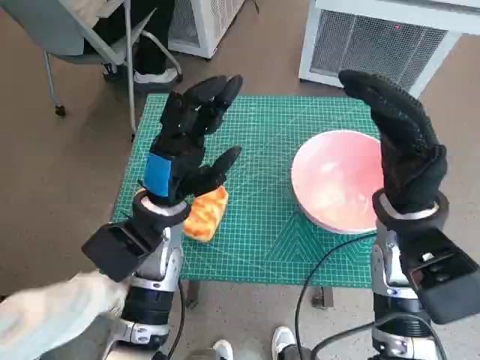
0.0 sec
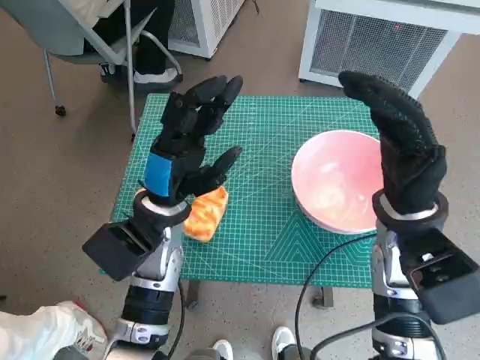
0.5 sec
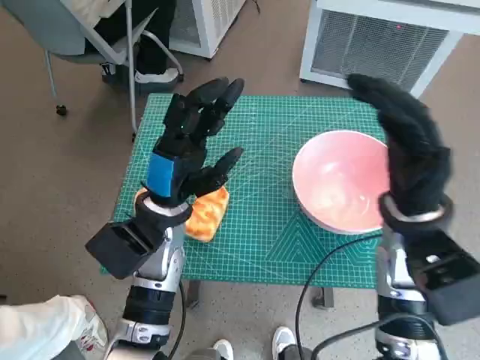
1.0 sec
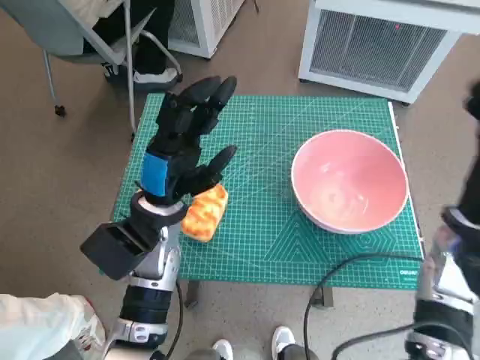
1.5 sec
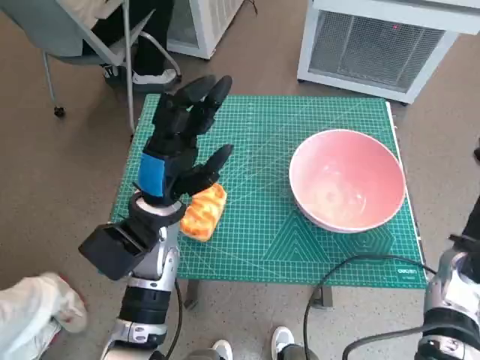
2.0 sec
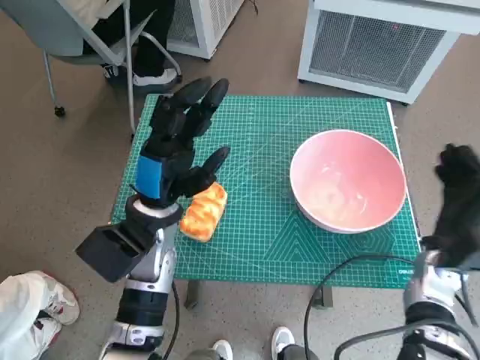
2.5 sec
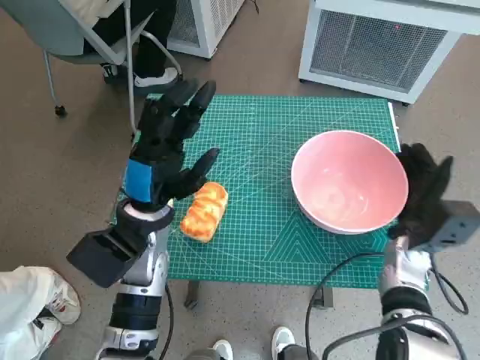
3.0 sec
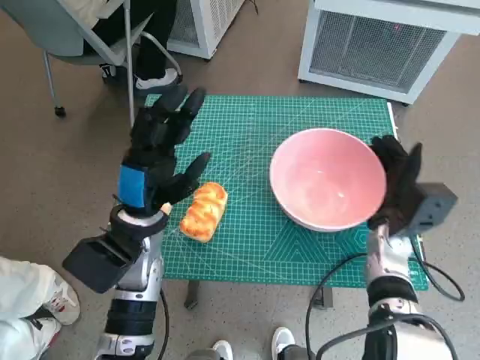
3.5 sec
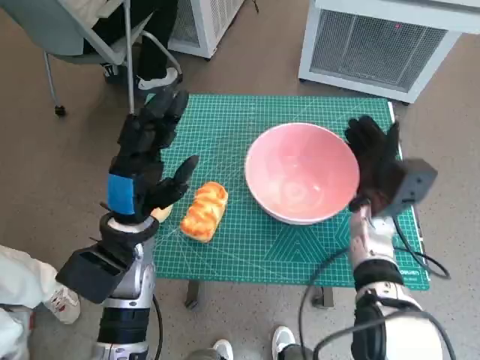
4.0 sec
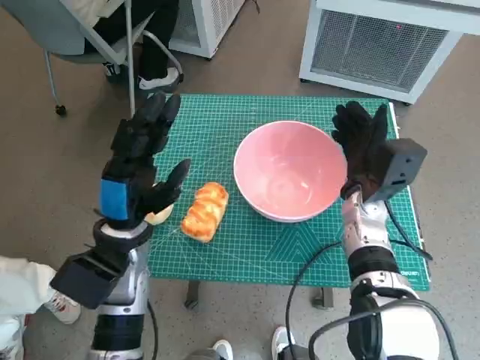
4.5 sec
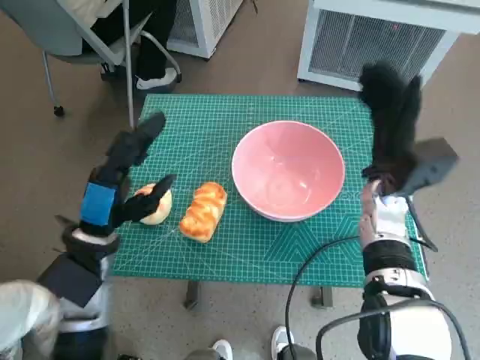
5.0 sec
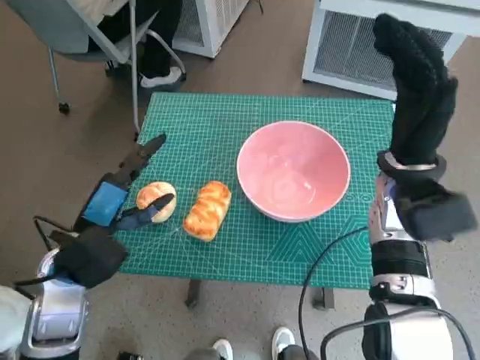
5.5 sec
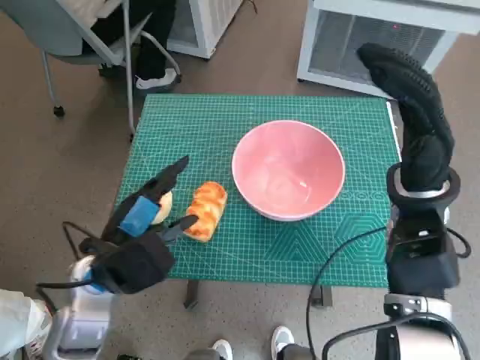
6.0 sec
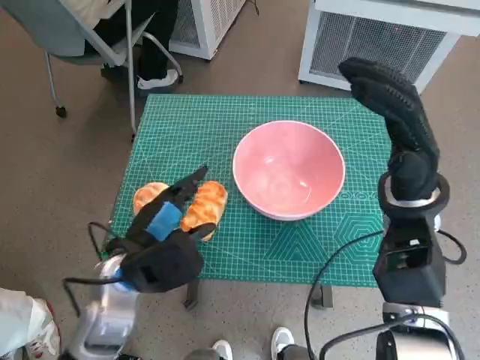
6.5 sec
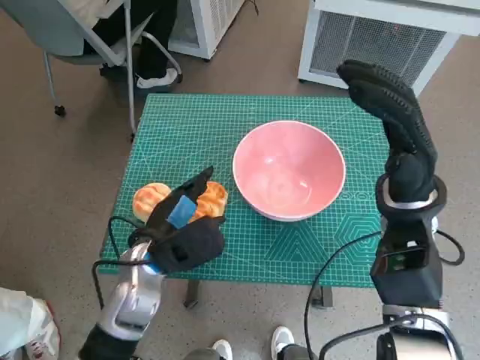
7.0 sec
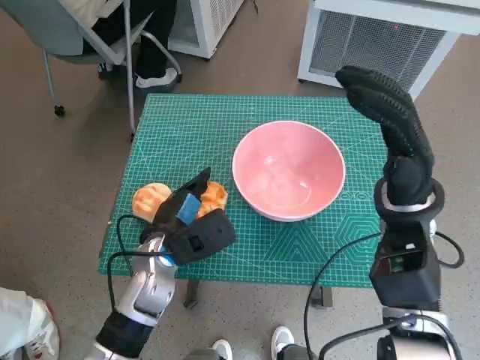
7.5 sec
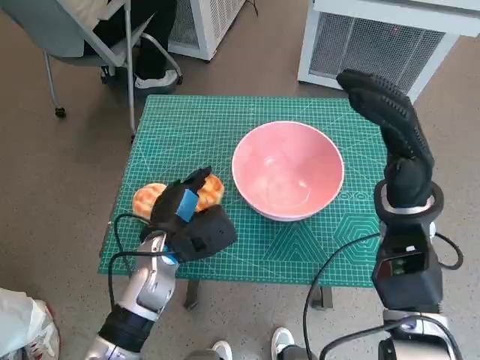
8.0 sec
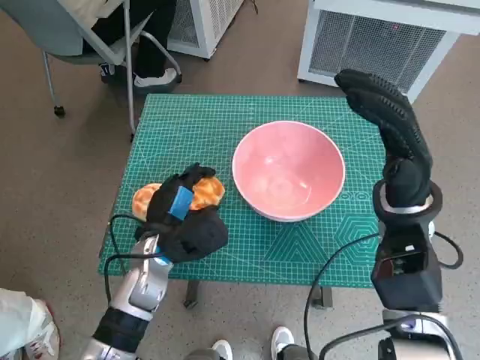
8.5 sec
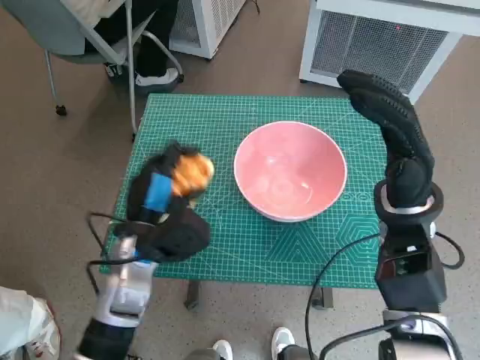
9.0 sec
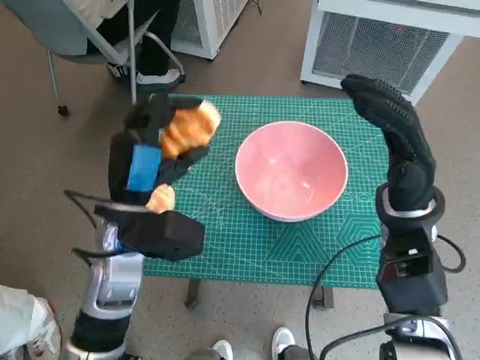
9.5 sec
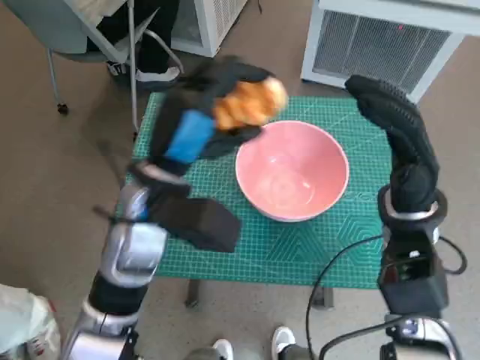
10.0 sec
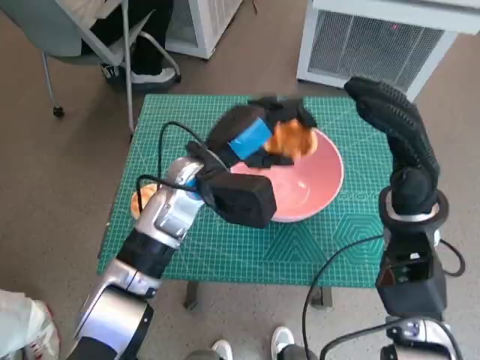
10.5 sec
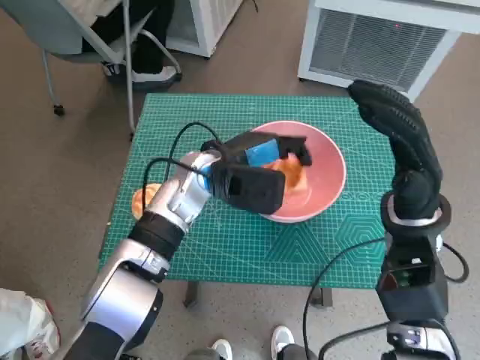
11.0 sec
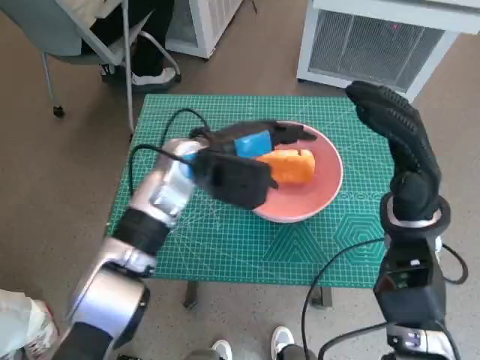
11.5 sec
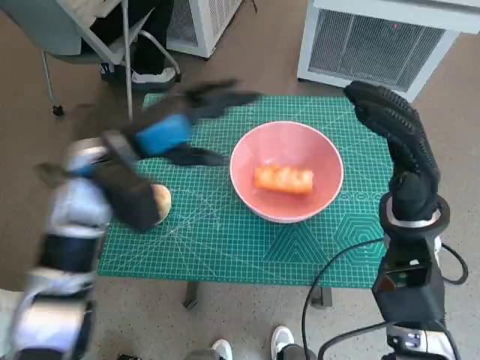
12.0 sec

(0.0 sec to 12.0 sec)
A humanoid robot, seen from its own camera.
Task of the whole recording: Push the bowl to the center of the table and put the bread into the bowl.
Step, 0.0 sec - 4.5 sec: Move the pink bowl to the center of table with right hand.
Step, 5.0 sec - 8.0 sec: Grasp the long bread with left hand.
Step, 8.5 sec - 11.5 sec: Place the long bread in pink bowl with left hand.
2.0 sec - 4.0 sec: The right hand travels to the left and forward by some 15 cm.
4.0 sec - 6.0 sec: The left hand changes place by approximately 5 cm; the right hand is displaced upward by approximately 10 cm.
6.0 sec - 8.0 sec: The left hand travels downward and forward by some 10 cm.
8.0 sec - 10.0 sec: The left hand is displaced upward by about 15 cm.
10.0 sec - 12.0 sec: The left hand goes some 5 cm to the left.

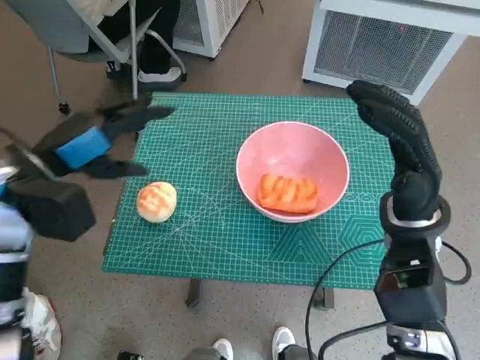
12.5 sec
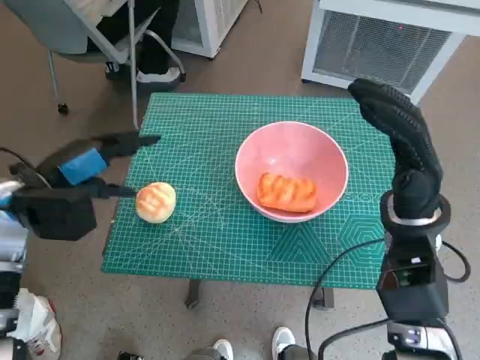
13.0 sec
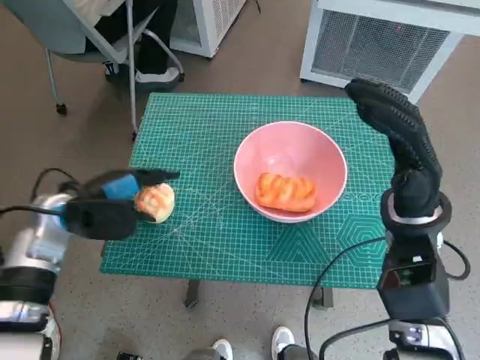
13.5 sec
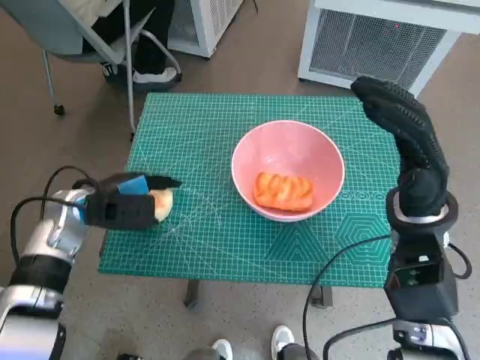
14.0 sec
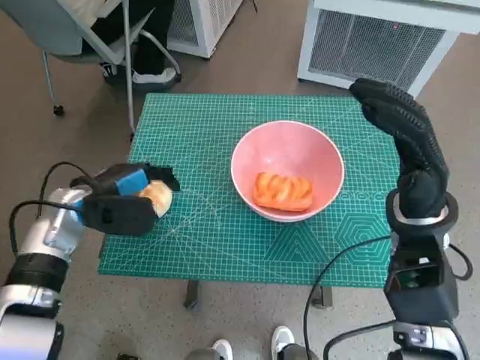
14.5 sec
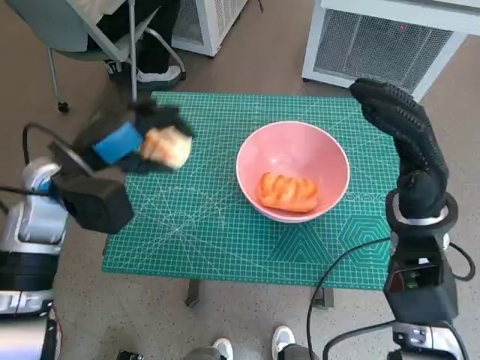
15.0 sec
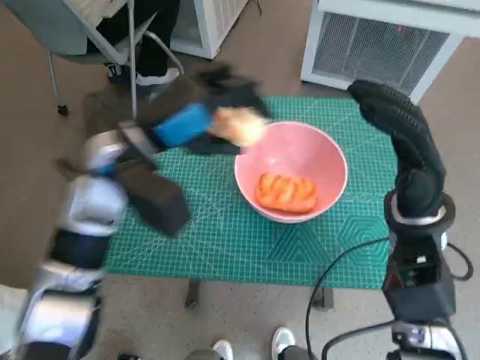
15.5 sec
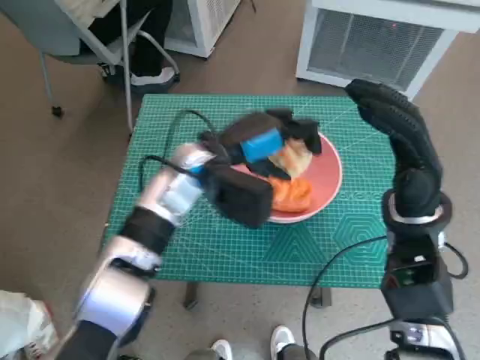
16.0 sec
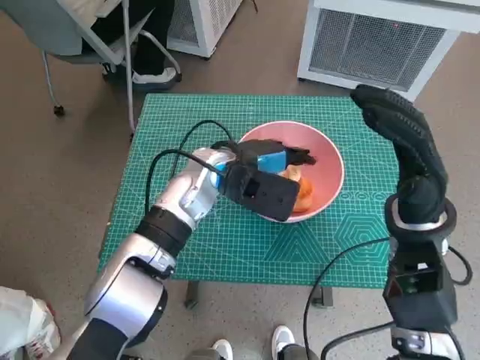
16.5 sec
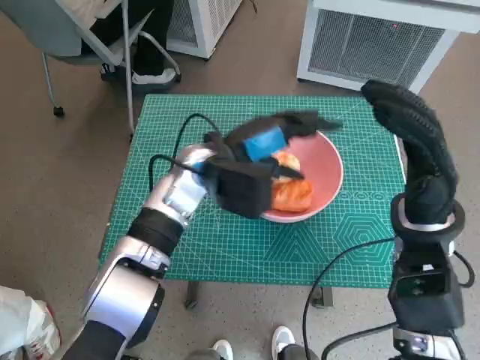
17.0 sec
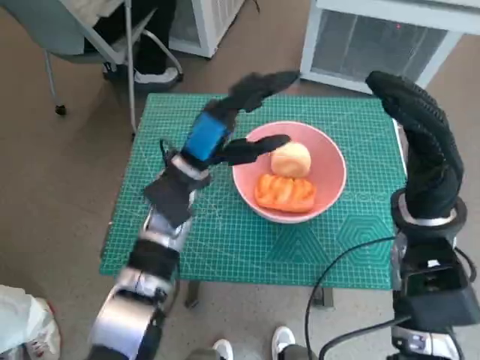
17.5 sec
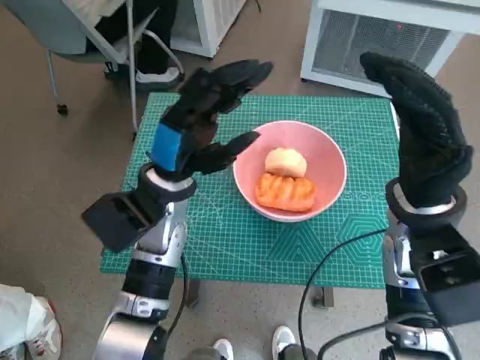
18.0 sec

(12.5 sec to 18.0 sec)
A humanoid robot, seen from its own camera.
Task of the whole recording: Push the bowl to the center of the table and put the bread into the bowl.
Step, 12.5 sec - 14.0 sec: Grasp the round bread with left hand.
Step, 14.5 sec - 17.0 sec: Place the round bread in pink bowl with left hand.
12.5 sec - 14.5 sec: The left hand heads downward, covering roughly 10 cm.
14.5 sec - 16.0 sec: The left hand shifts about 20 cm to the right.
16.0 sec - 18.0 sec: The left hand changes place by some 5 cm.

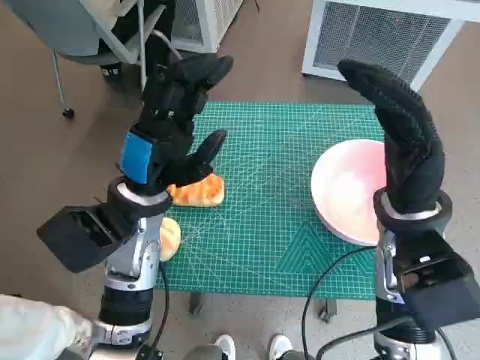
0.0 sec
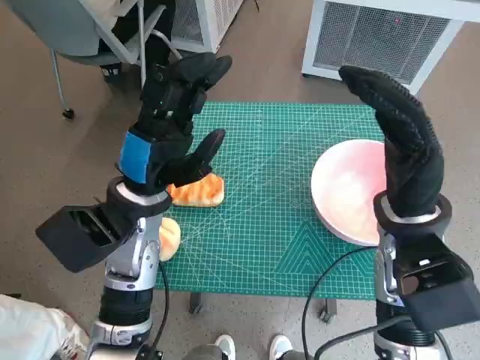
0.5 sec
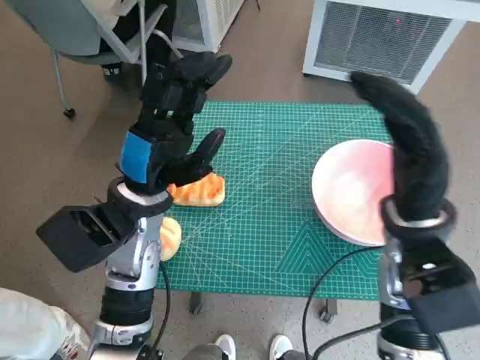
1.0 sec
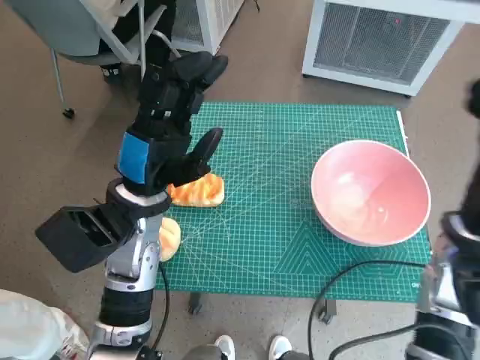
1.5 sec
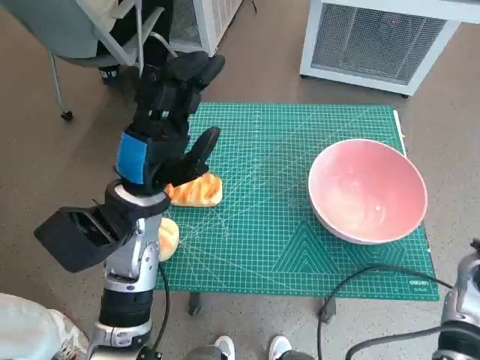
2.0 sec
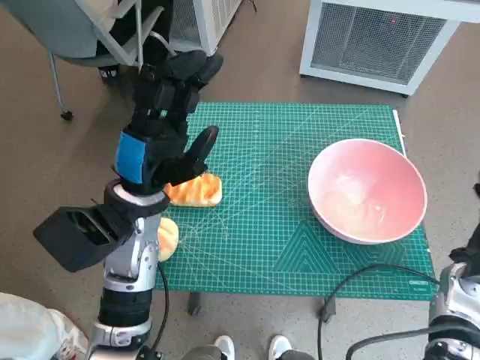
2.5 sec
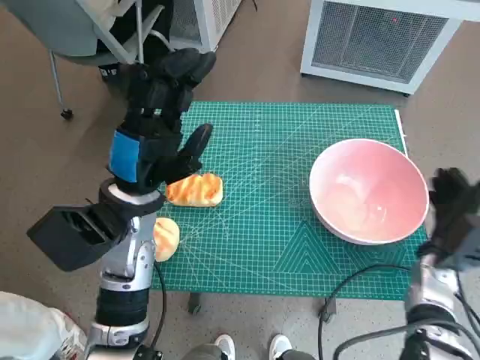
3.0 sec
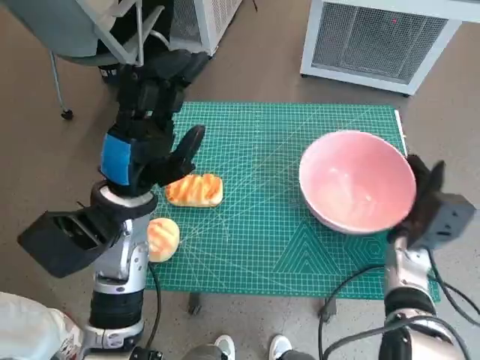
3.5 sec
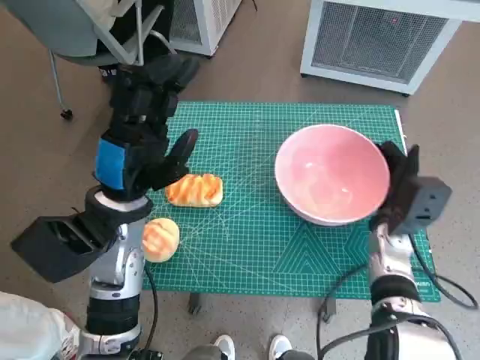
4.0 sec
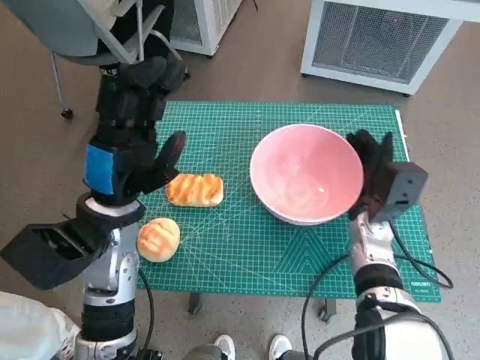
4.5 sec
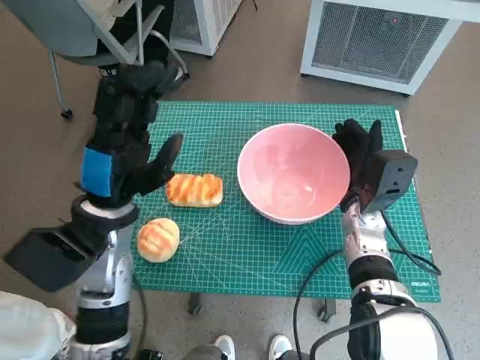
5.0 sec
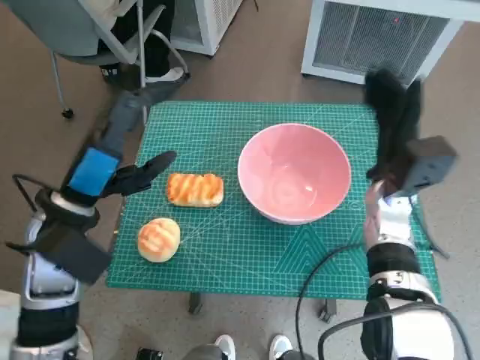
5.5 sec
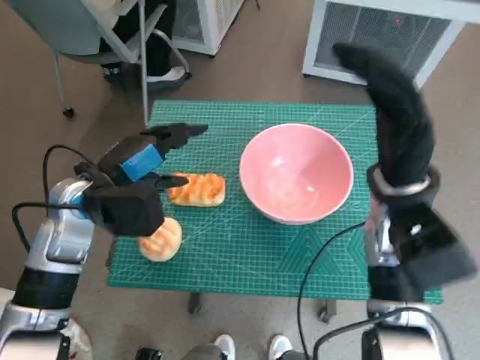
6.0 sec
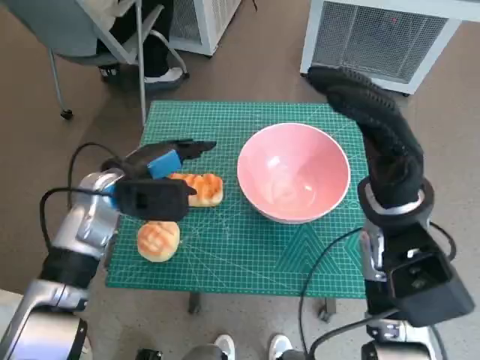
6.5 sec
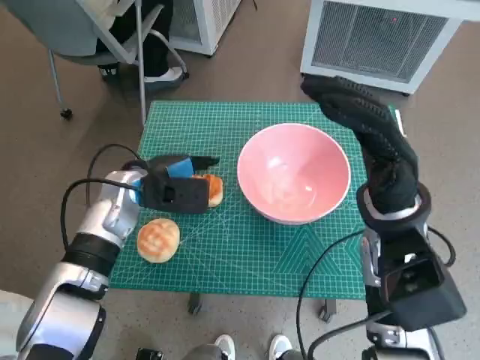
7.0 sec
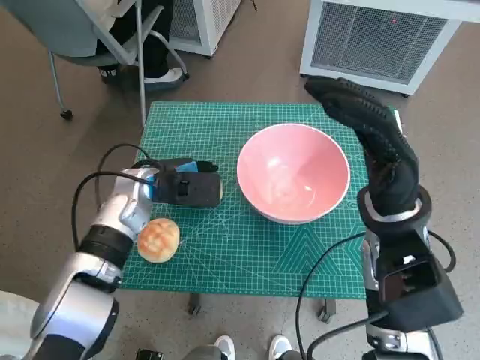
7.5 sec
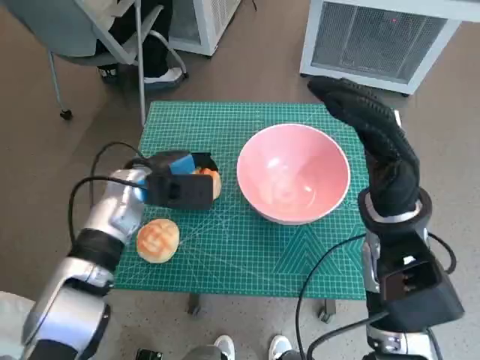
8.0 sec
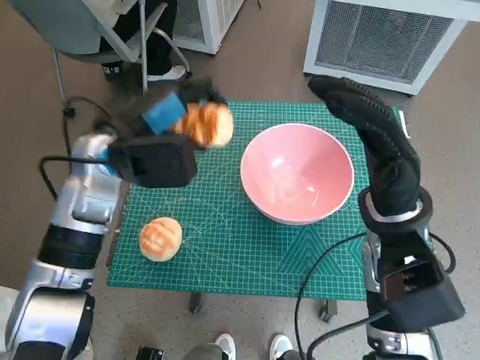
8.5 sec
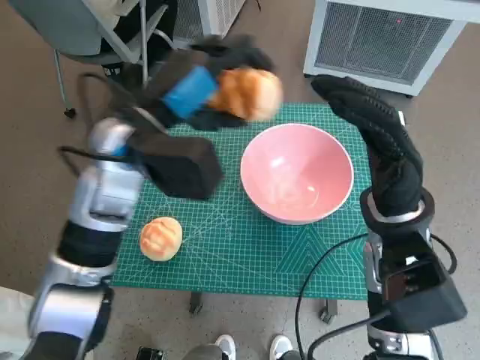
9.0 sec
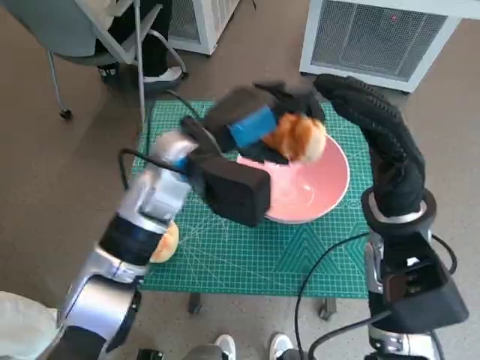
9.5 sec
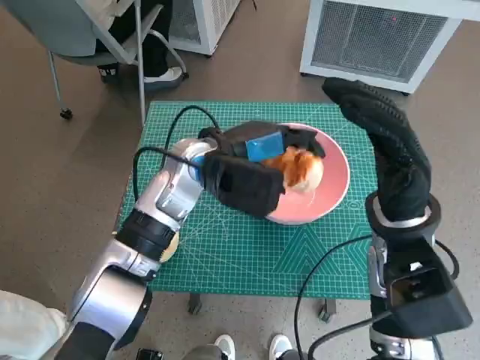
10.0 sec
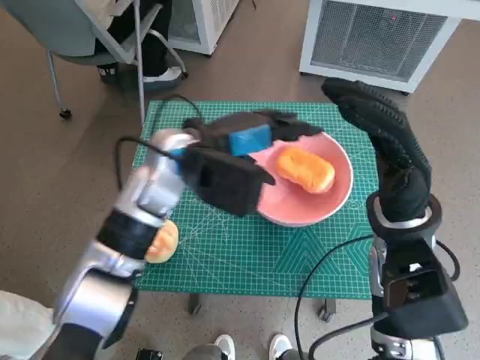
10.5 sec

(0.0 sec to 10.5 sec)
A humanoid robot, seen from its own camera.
Task of the whole recording: Push the bowl to the center of the table and put the bread into the bowl.
Step, 0.0 sec - 5.5 sec: Move the pink bowl to the center of table with right hand.
Step, 6.0 sec - 7.5 sec: Grasp the long bread with left hand.
Step, 8.0 sec - 10.0 sec: Place the long bread in pink bowl with left hand.
2.0 sec - 4.0 sec: The right hand travels to the left, forward and downward by about 10 cm.
4.0 sec - 6.5 sec: The right hand goes approximately 15 cm upward. Meanwhile the left hand goes approximately 5 cm forward.
6.5 sec - 8.5 sec: The left hand moves upward, some 5 cm.
8.5 sec - 10.5 sec: The left hand travels to the right by approximately 10 cm.
